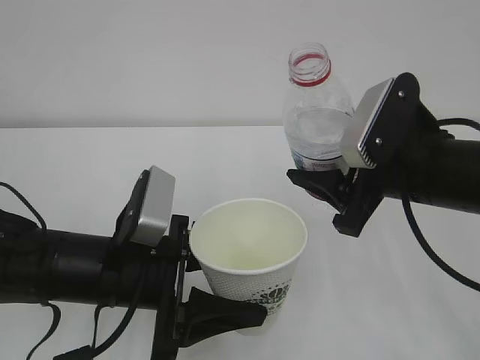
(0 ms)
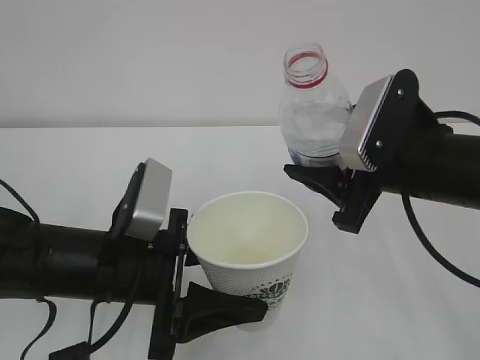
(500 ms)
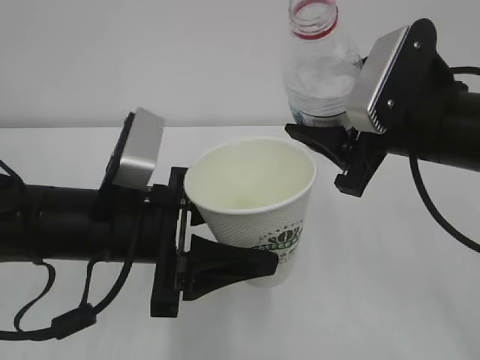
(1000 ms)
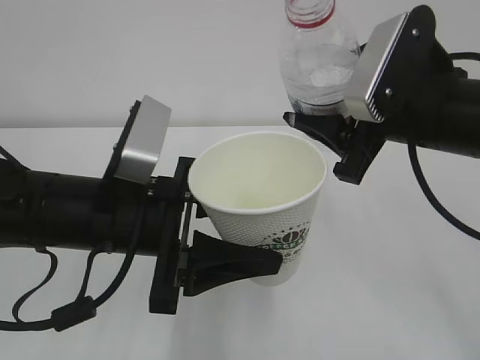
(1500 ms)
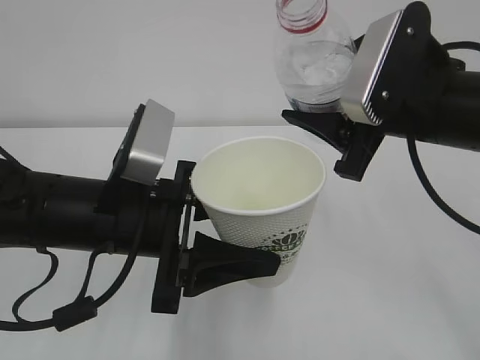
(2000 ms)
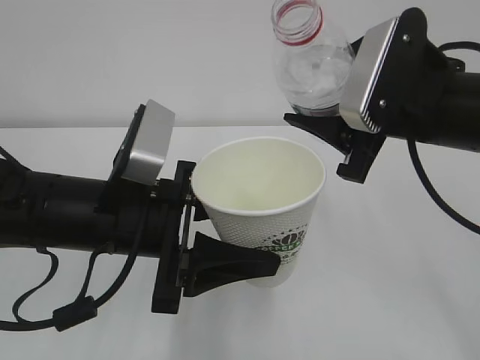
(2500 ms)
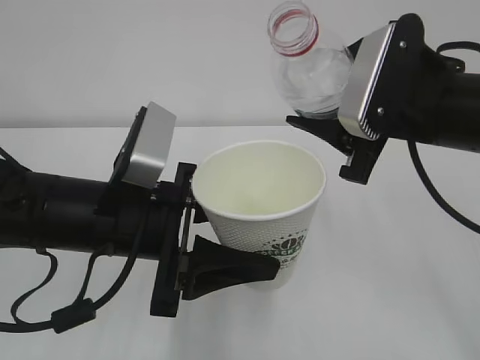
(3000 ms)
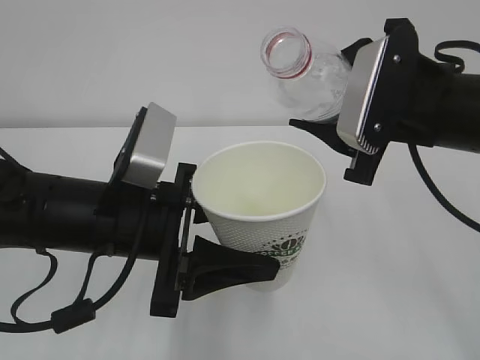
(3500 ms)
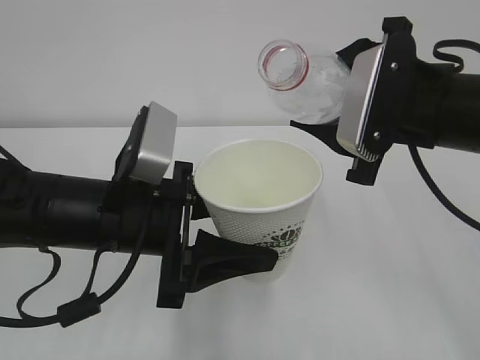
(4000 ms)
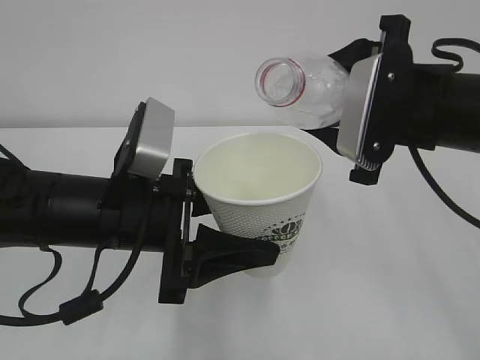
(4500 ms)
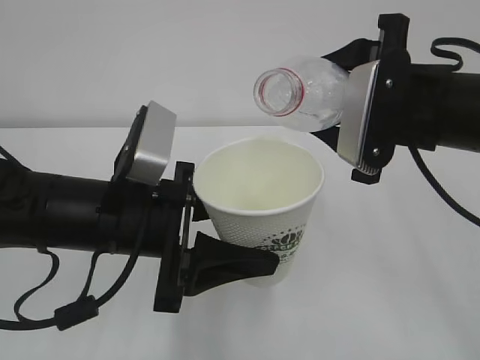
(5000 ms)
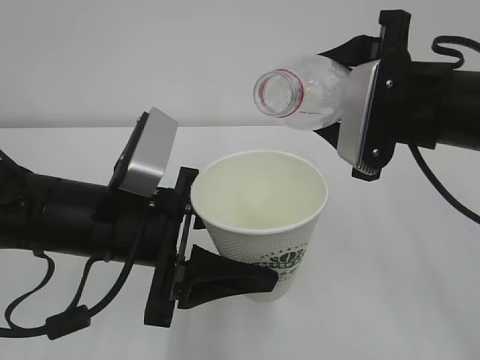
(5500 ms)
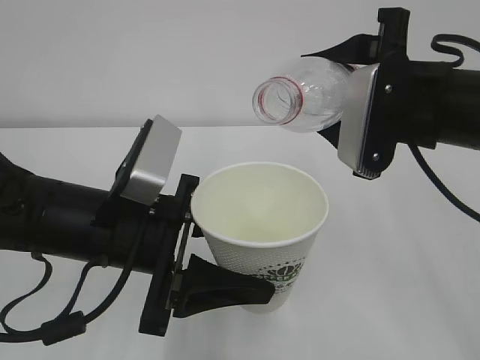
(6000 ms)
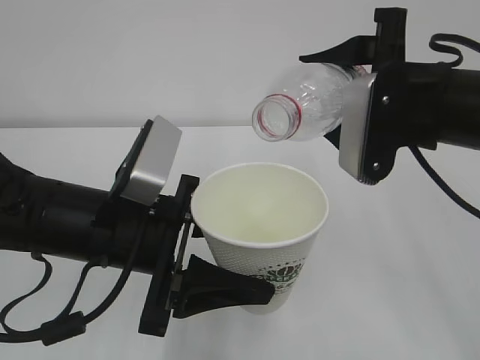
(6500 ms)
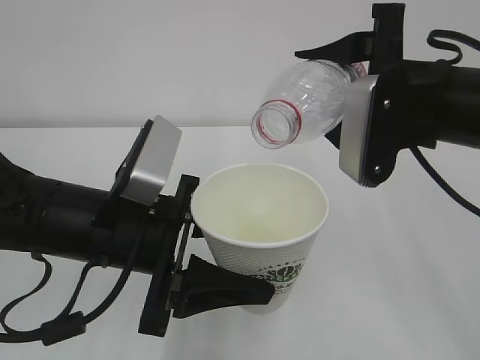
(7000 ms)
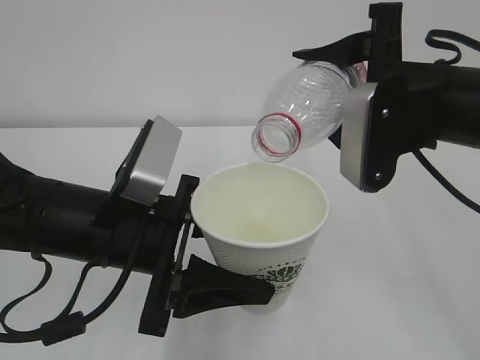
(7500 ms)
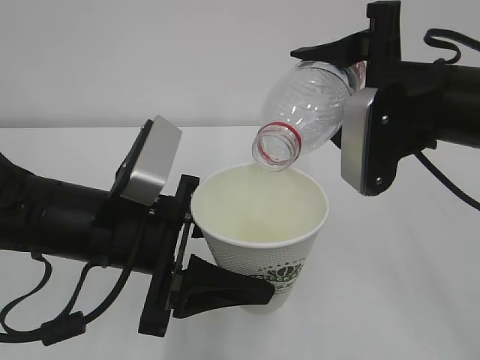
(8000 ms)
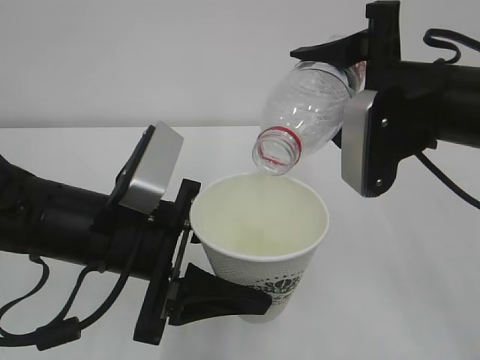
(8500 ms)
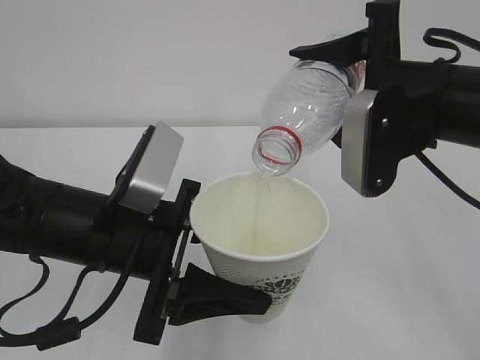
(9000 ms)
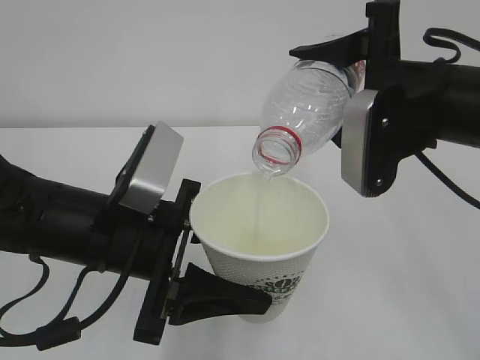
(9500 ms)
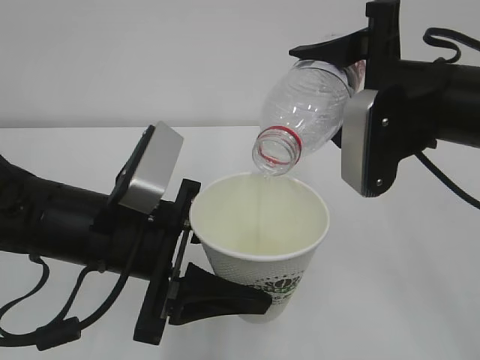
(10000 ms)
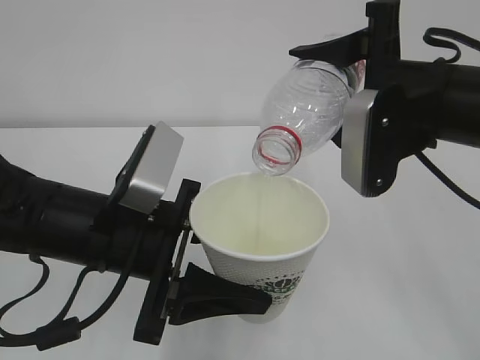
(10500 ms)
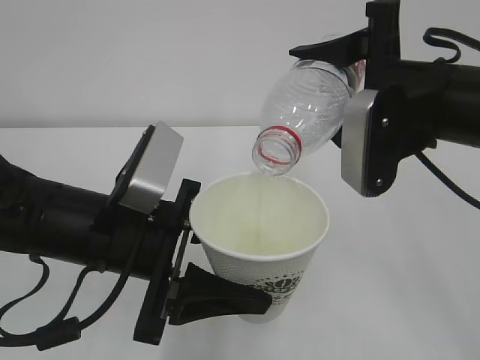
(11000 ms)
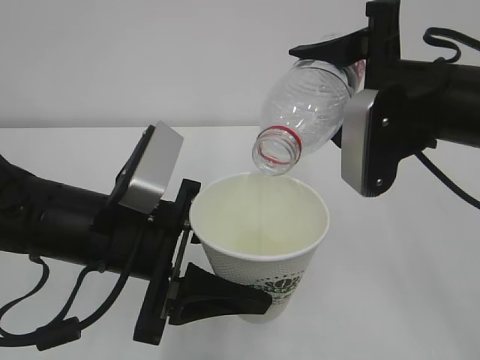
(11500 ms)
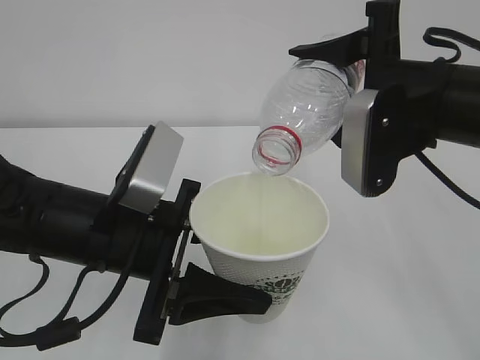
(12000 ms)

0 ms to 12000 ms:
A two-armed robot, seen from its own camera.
0 ms to 2000 ms: Both grippers travel together upward, approximately 5 cm.
2000 ms to 4000 ms: The grippers stay close to where they were, moving slightly.
4000 ms to 6000 ms: The grippers stay close to where they were, moving slightly.
6000 ms to 8000 ms: The grippers move only a little.
8000 ms to 12000 ms: Both grippers stay put.

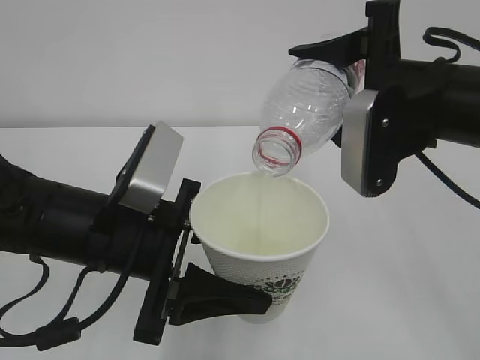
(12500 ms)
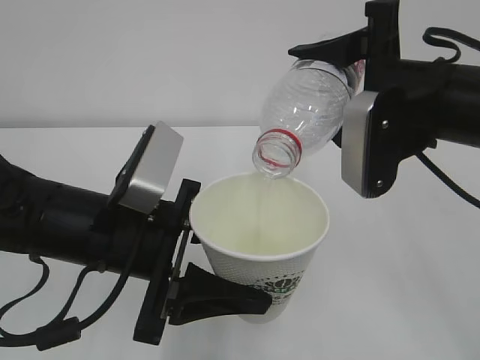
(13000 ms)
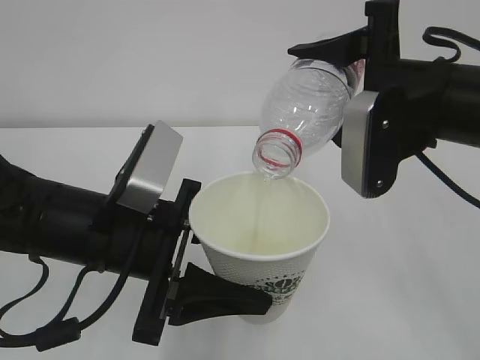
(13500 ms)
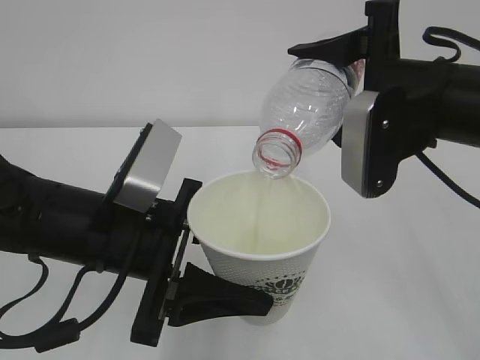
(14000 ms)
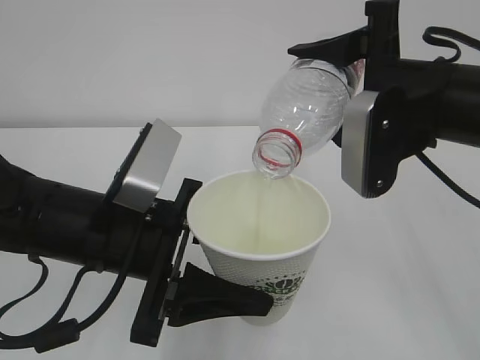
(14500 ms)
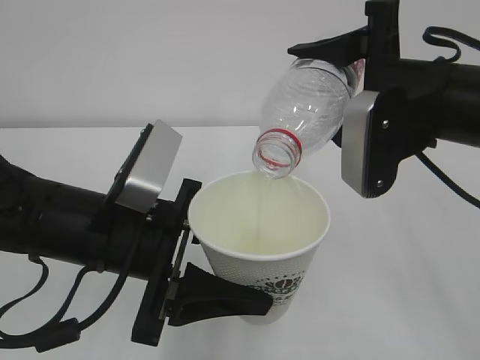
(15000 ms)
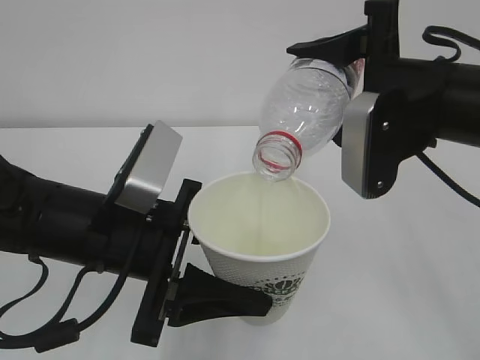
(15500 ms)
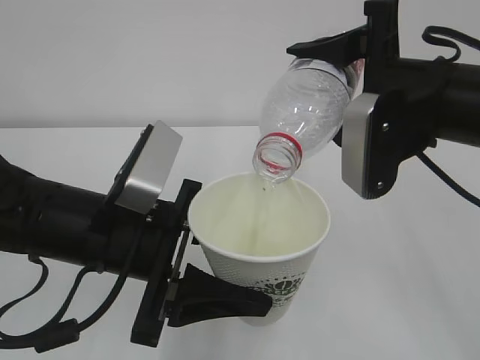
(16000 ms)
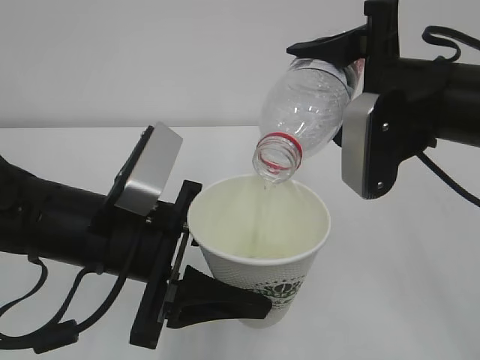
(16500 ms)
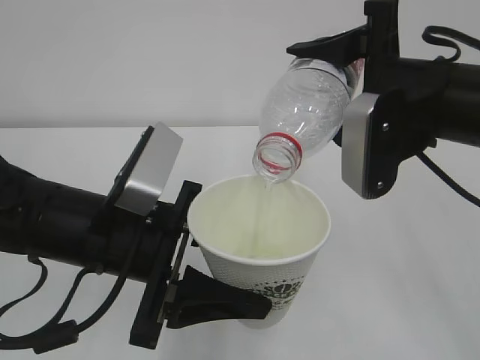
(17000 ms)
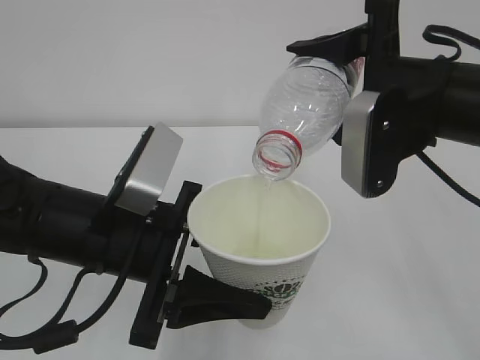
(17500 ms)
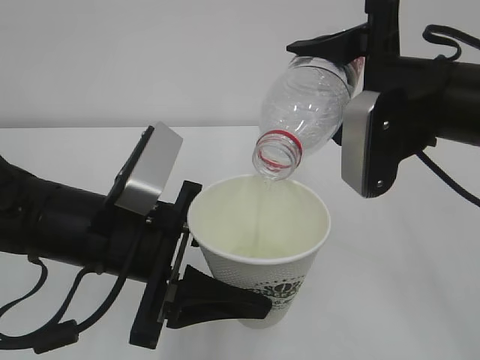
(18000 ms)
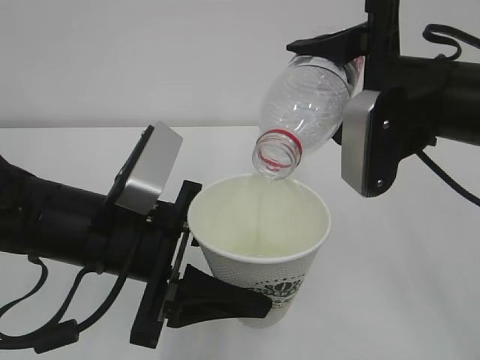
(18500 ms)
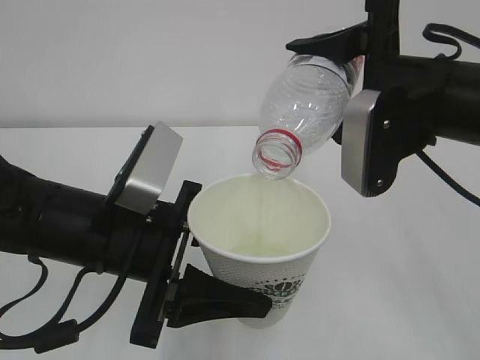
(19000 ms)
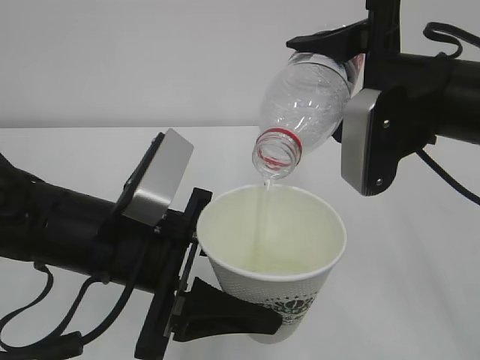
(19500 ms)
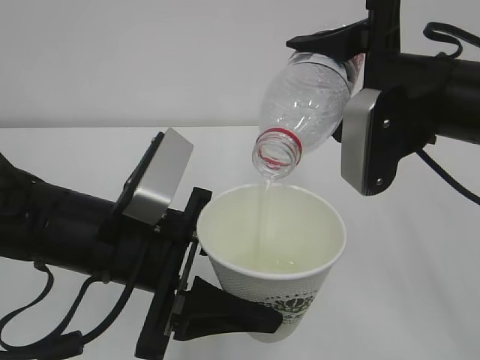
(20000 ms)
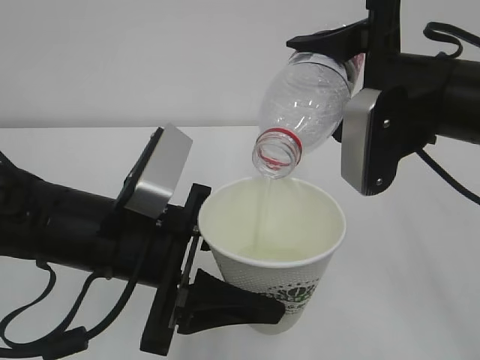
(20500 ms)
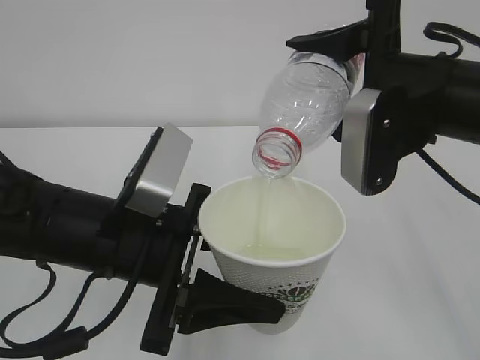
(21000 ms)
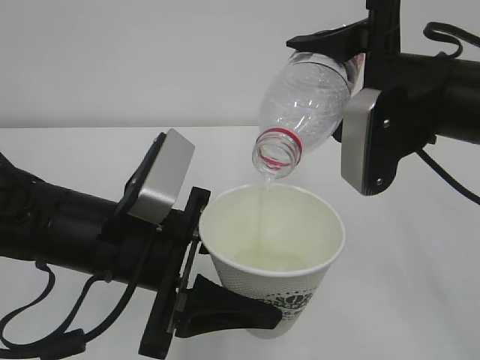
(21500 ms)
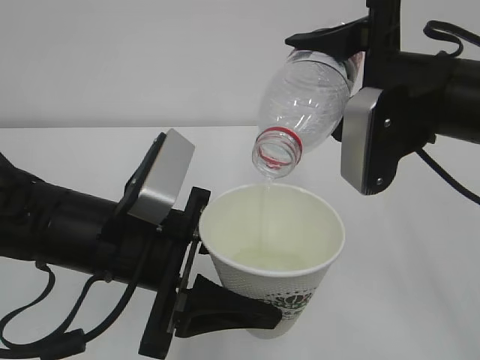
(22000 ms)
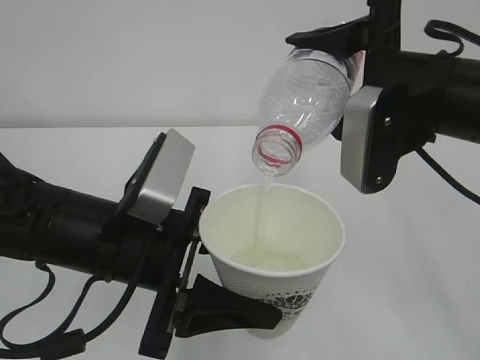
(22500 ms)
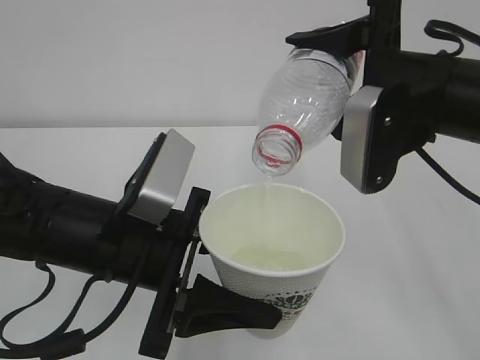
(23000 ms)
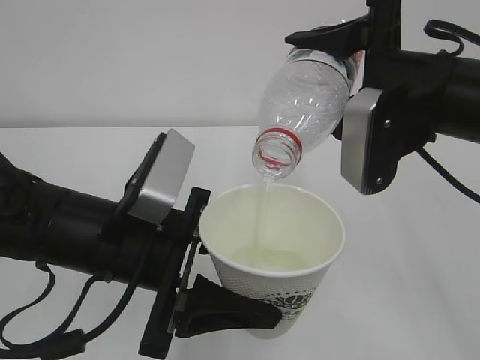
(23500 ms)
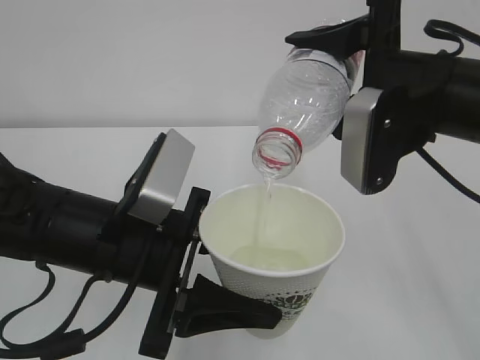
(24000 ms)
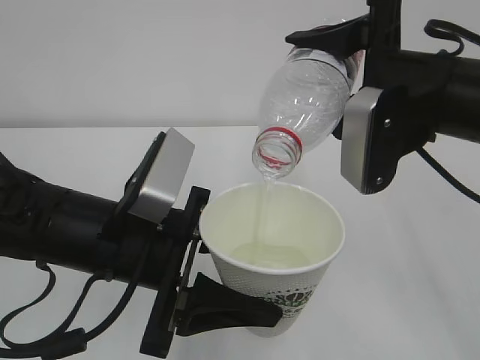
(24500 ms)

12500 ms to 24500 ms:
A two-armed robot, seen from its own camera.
12500 ms to 22500 ms: Neither gripper changes place.
22500 ms to 24500 ms: Neither gripper changes place.

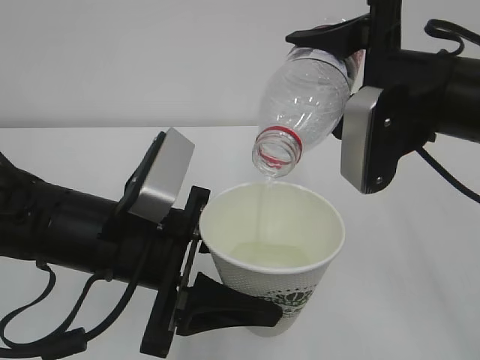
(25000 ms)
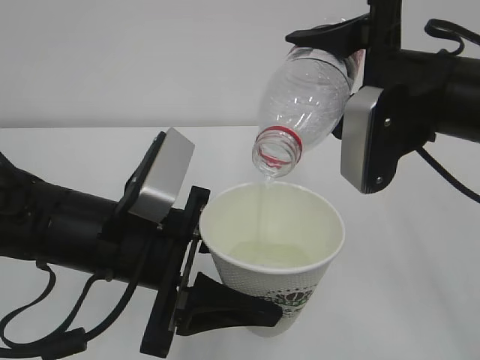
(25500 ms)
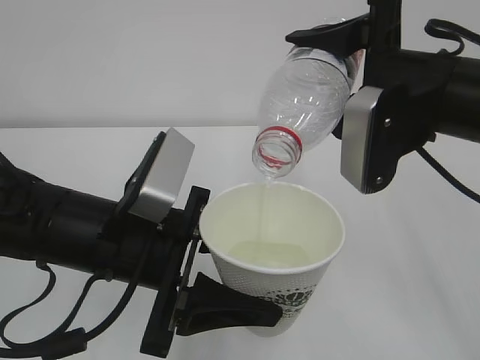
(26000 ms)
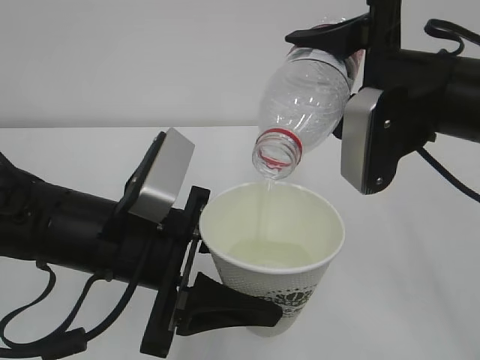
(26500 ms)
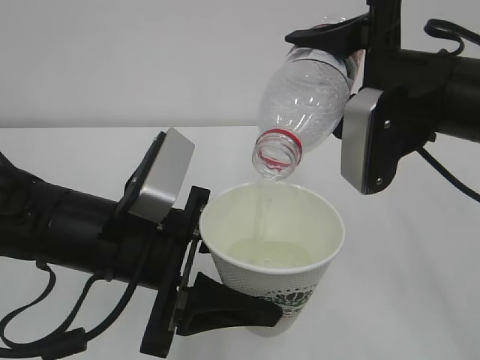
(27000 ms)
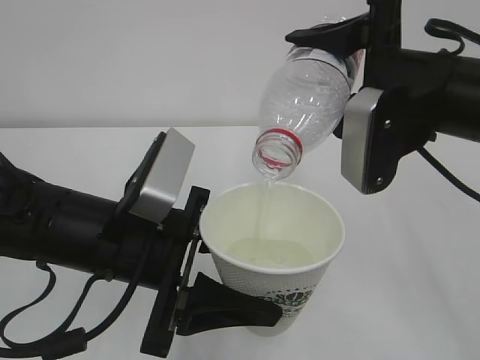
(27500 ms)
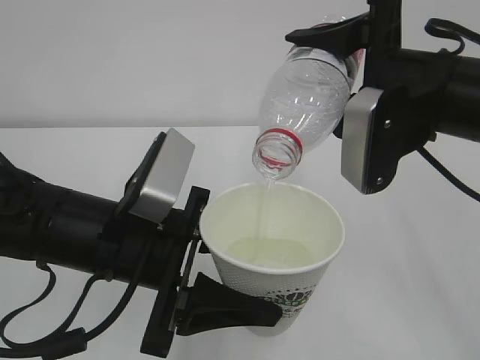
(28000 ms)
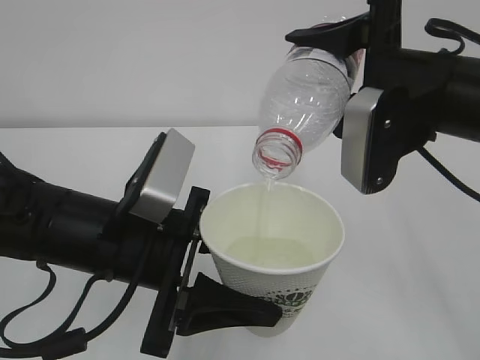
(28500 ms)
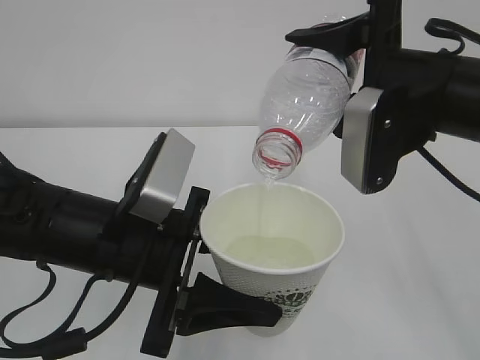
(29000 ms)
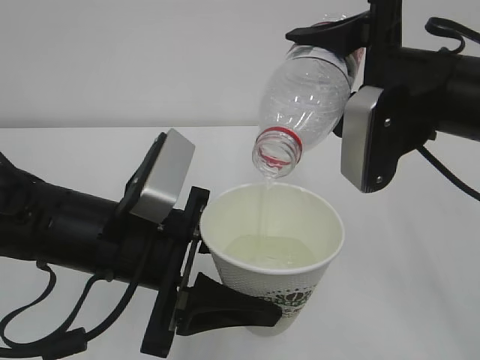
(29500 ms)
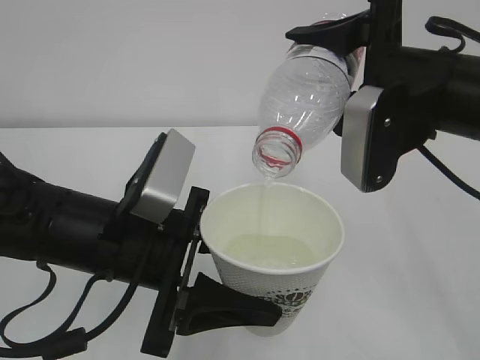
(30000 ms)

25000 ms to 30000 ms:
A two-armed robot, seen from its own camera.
25000 ms to 30000 ms: Both grippers stay about where they are.
